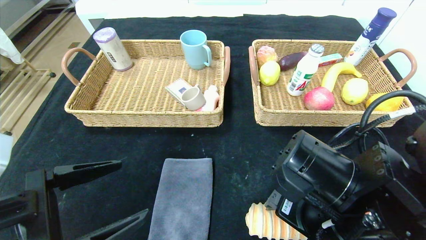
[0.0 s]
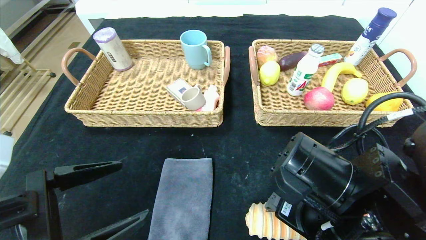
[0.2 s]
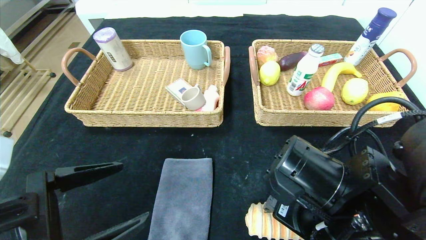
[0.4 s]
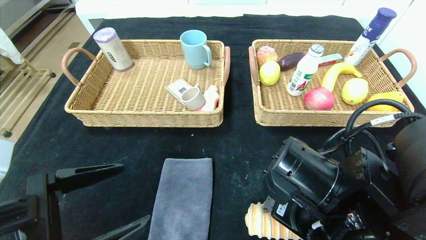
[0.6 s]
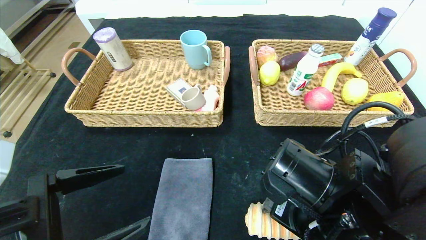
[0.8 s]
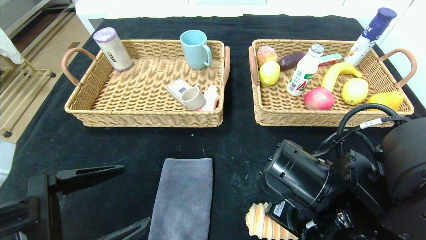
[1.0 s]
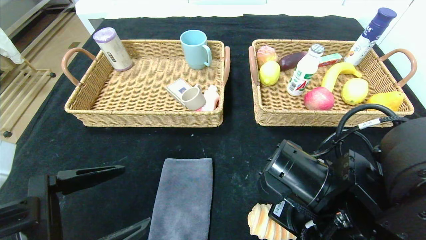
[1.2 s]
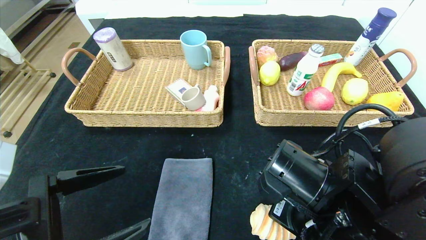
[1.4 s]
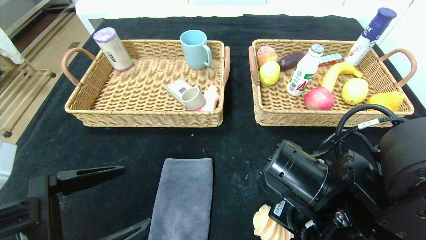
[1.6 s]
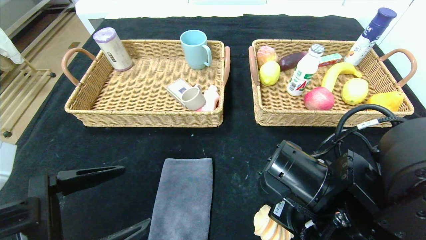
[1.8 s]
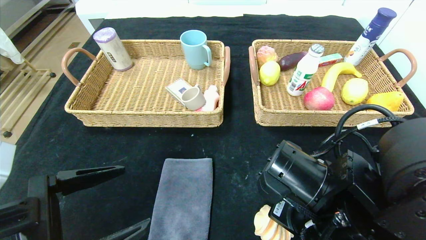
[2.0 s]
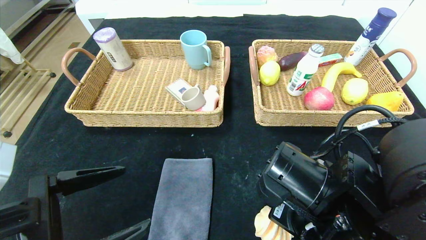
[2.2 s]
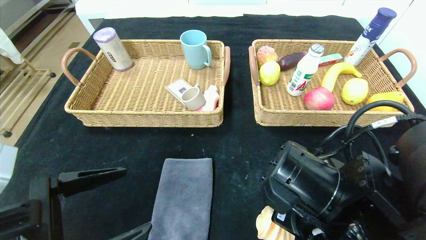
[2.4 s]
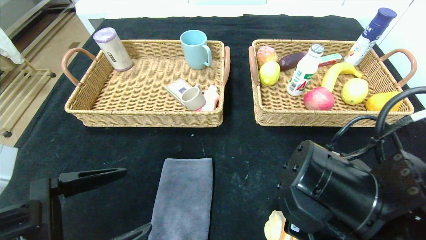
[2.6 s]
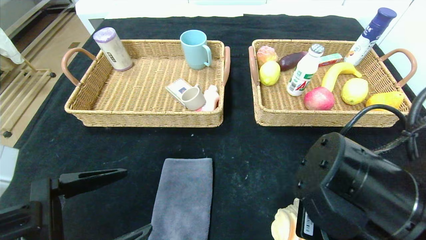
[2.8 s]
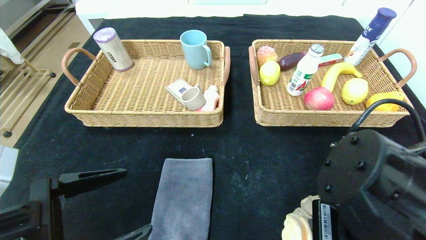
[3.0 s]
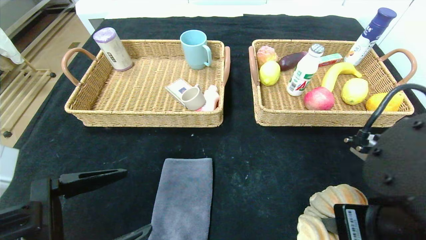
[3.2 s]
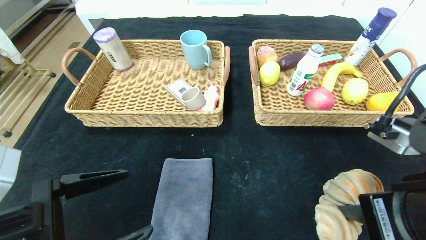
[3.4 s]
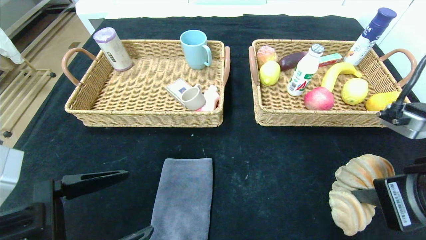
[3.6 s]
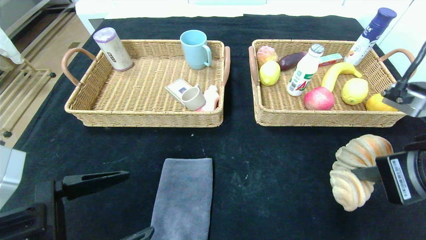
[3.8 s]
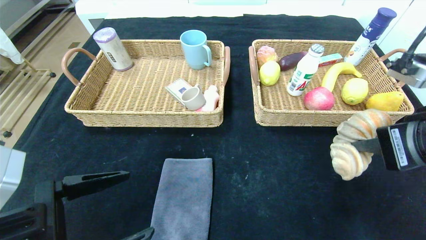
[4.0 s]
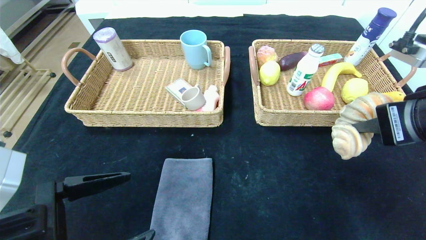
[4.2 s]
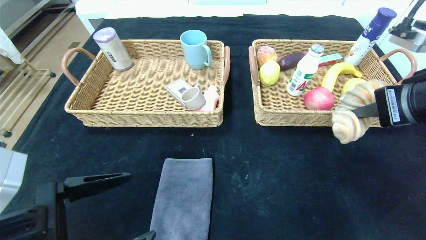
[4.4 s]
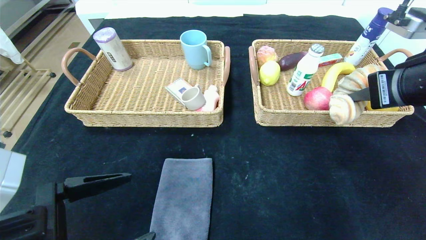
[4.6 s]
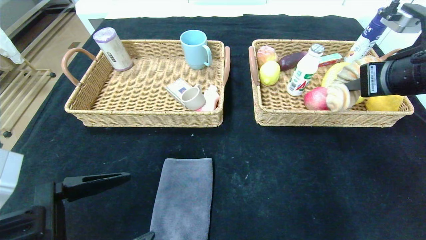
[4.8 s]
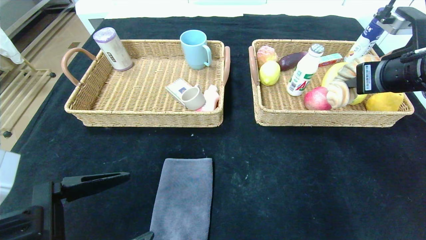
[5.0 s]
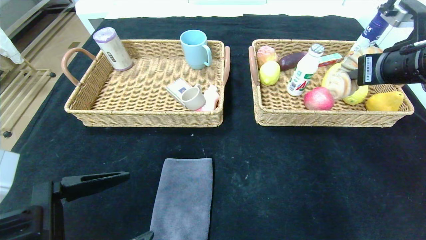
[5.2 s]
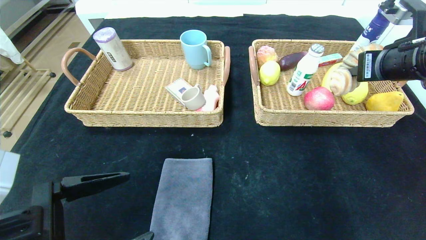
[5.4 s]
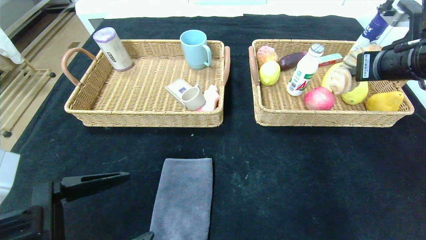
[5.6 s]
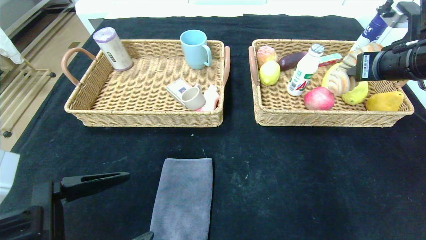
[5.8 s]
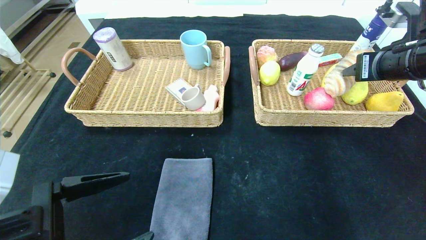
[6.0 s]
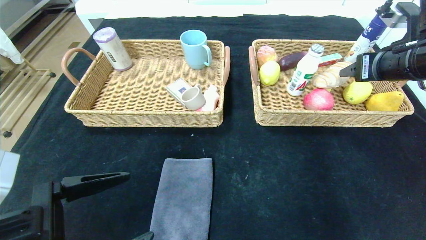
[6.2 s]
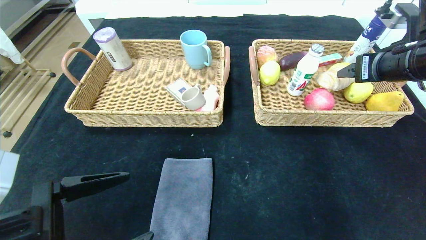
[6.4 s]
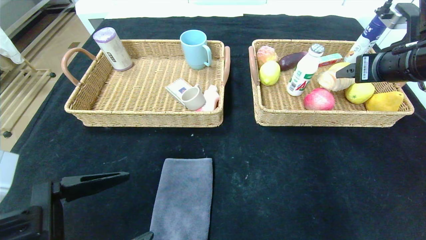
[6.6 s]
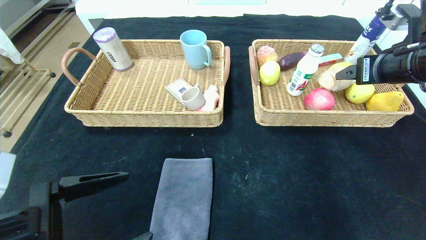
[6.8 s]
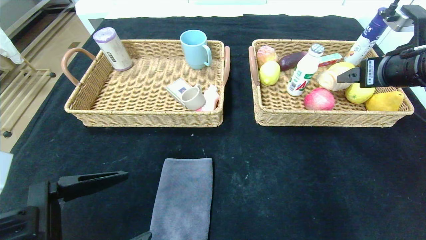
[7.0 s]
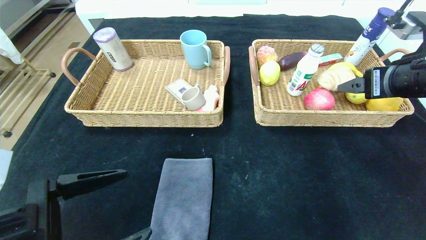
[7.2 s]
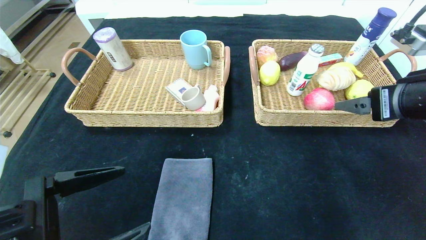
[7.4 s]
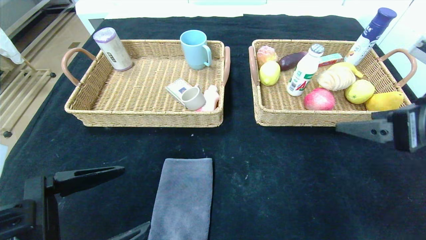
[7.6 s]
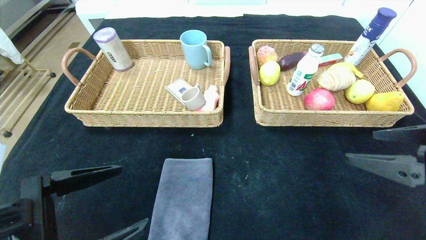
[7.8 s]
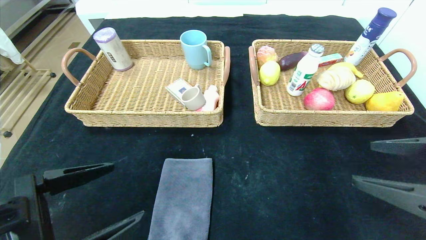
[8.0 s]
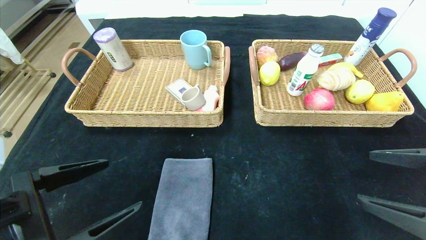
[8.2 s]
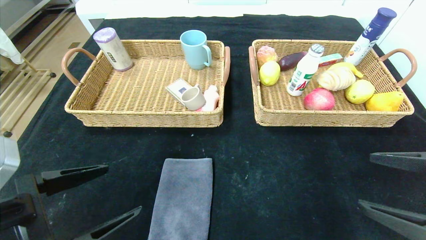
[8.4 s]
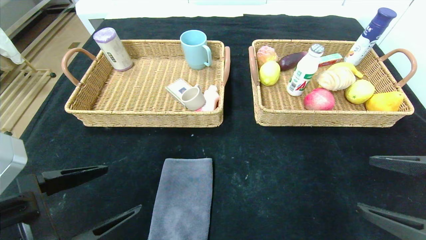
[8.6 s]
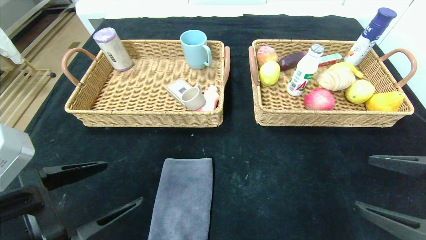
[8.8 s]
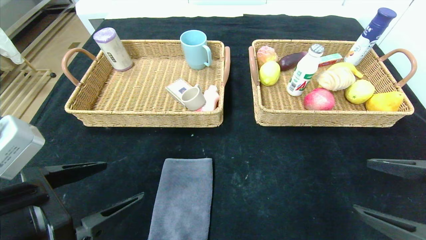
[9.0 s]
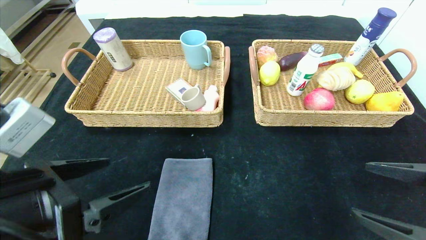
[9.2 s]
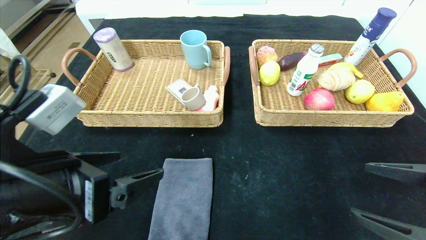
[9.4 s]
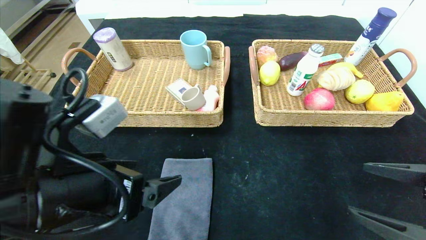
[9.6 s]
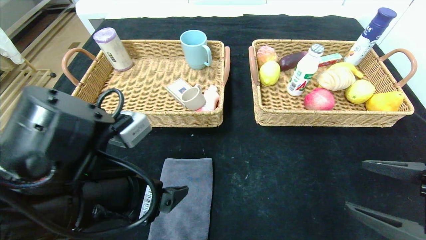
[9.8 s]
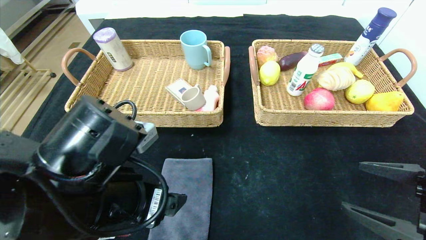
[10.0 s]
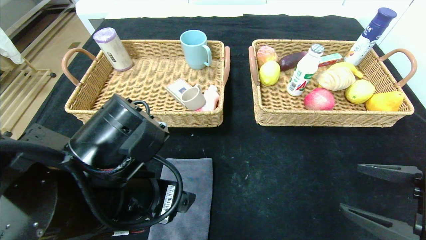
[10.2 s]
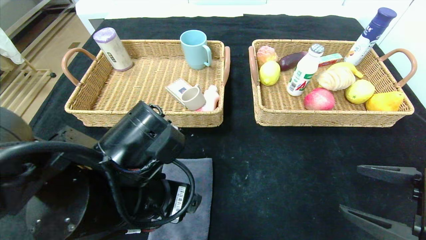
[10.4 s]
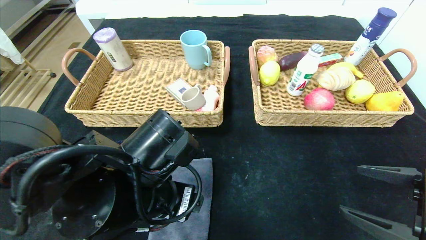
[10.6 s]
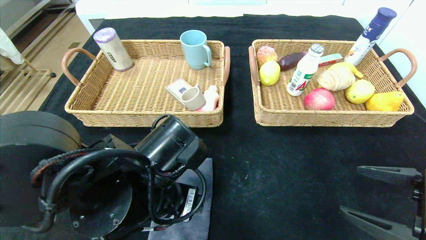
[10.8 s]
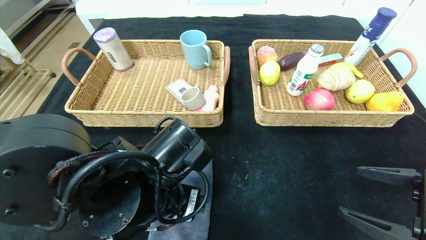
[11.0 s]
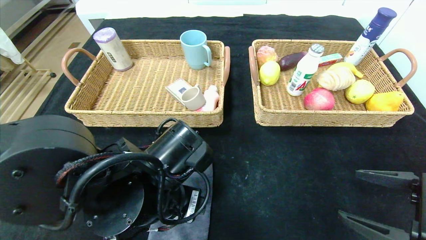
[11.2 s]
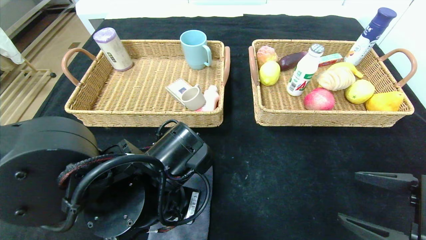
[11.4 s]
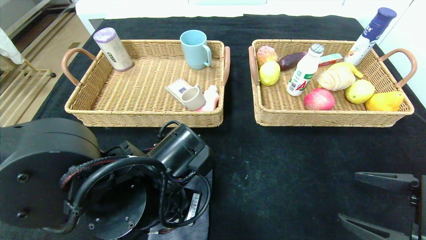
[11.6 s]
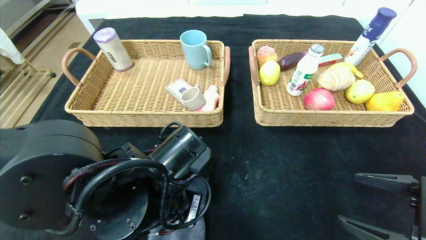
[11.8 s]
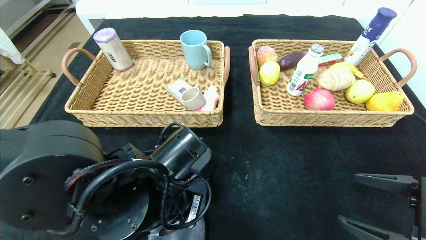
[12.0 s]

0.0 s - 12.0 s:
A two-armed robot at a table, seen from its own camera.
Step, 0.0 s - 6.4 s: Grasp the long bread and put it in the right basket.
0.0 s - 1.6 s: The right gripper closes its fingers.
1.6 s - 3.0 s: The right gripper goes about 5 cm backward.
3.0 s - 4.4 s: The right gripper goes roughly 15 cm to the right, upward and forward.
4.4 s - 6.0 s: The right gripper travels forward by some 10 cm, and opens.
6.0 s - 7.6 s: The right gripper is displaced backward by approximately 15 cm, and opens.
7.6 s - 9.0 s: The right gripper moves downward and backward, roughly 10 cm.
9.0 s - 10.4 s: The left gripper shifts approximately 15 cm to the right and forward.
10.4 s - 12.0 s: The left gripper closes up.

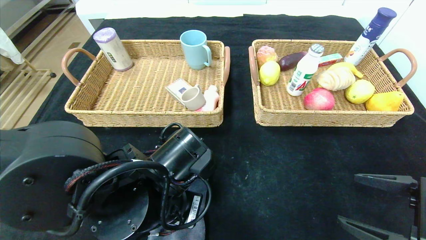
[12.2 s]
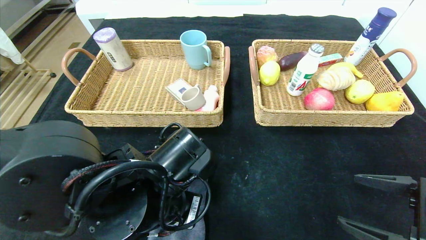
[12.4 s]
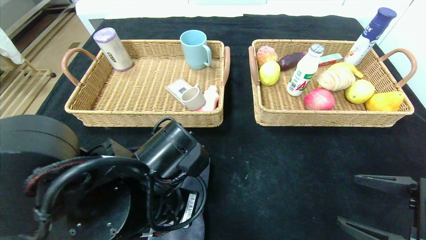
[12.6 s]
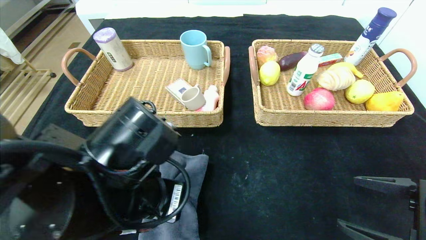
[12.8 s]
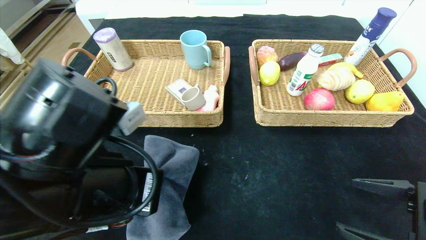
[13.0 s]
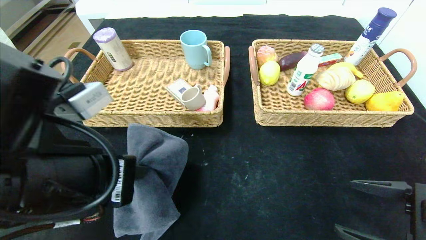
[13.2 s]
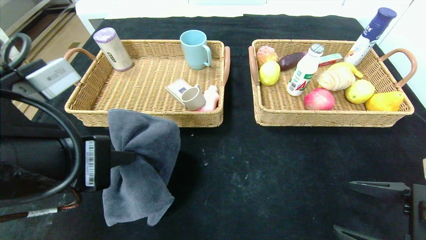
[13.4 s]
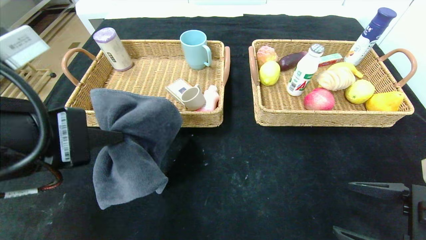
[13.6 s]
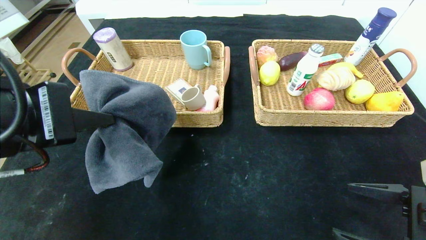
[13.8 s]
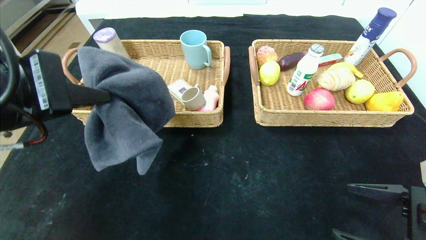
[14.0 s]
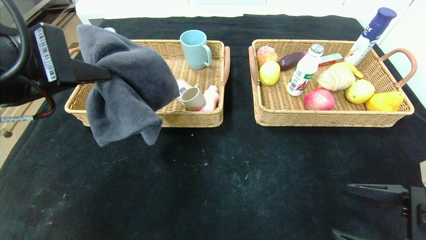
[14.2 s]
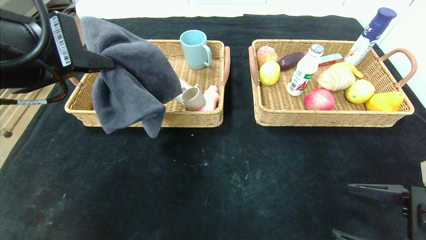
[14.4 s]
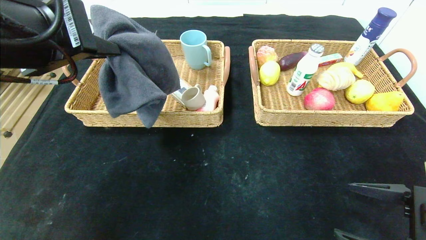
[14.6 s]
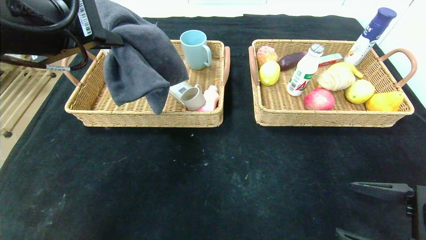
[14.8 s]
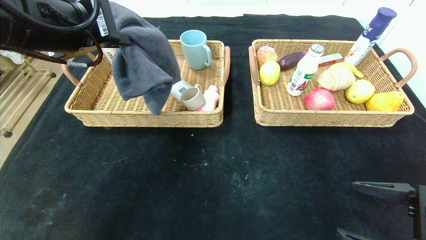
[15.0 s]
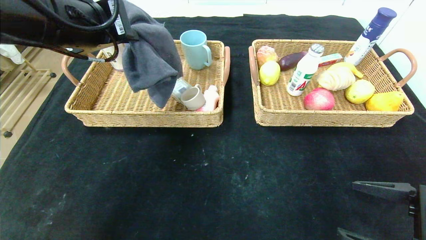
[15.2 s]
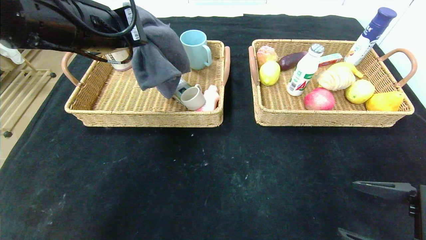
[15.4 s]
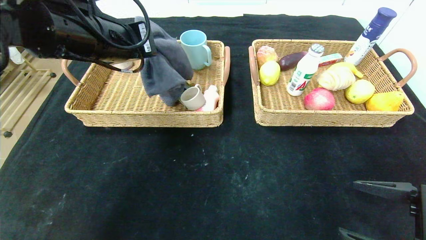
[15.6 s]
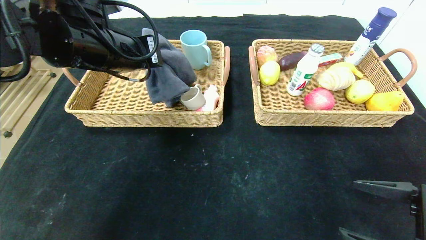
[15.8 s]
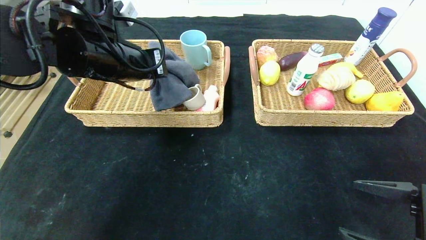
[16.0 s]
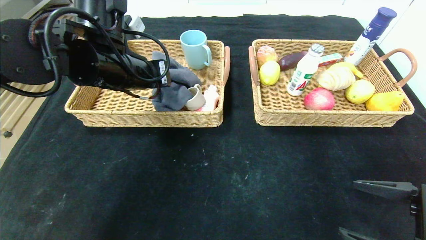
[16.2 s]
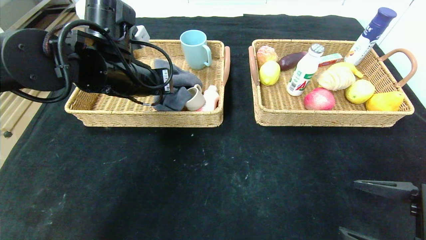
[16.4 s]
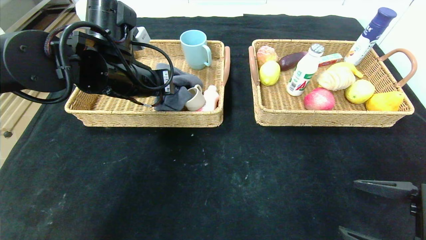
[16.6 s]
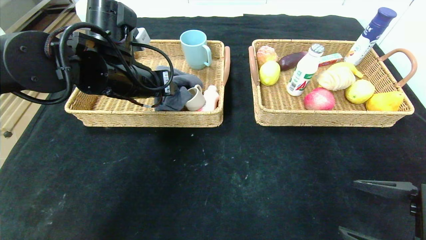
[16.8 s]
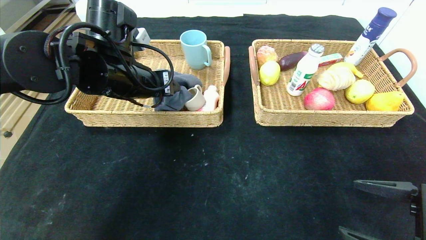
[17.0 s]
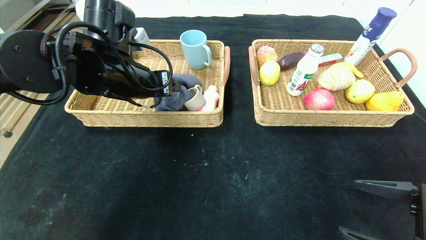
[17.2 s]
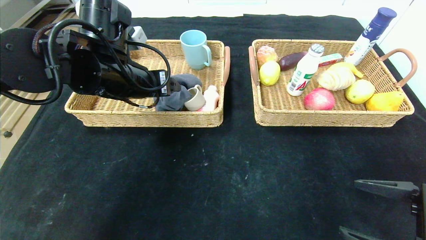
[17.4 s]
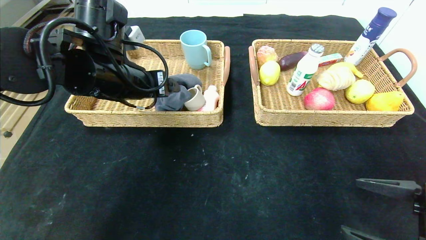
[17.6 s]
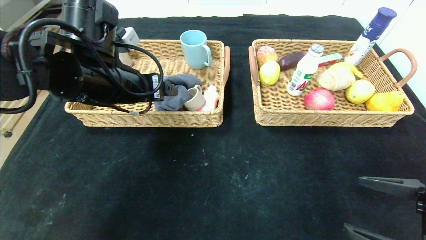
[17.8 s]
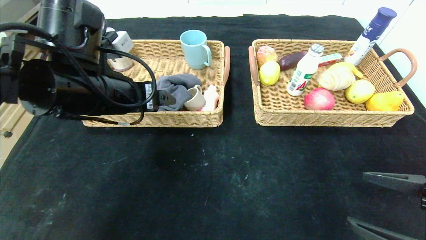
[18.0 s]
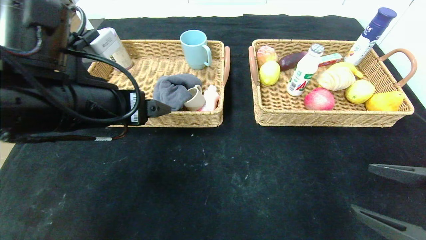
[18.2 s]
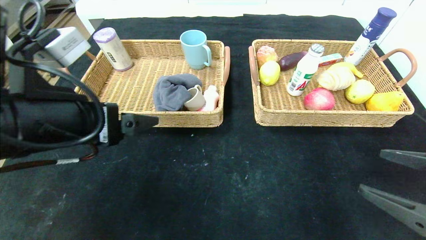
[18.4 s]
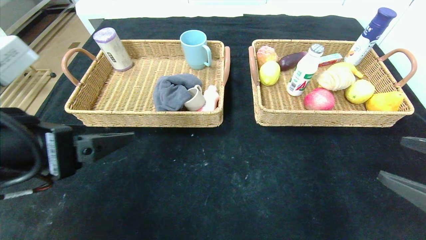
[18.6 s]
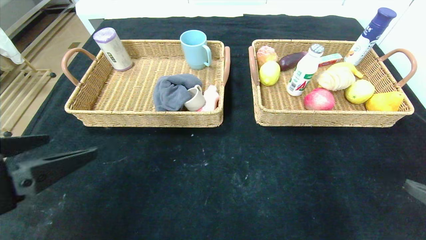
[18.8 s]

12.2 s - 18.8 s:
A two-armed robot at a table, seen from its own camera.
Step, 12.2 s - 17.6 s: Grasp the blue towel and put it in the left basket.
12.2 s - 13.8 s: The left gripper moves upward, to the left and backward, some 20 cm.
13.8 s - 15.4 s: The left gripper heads forward, covering about 15 cm.
15.4 s - 17.2 s: The left gripper heads downward, covering approximately 5 cm, and opens its fingers.
17.2 s - 18.8 s: The right gripper shifts about 5 cm upward. The left gripper travels backward by roughly 25 cm.
